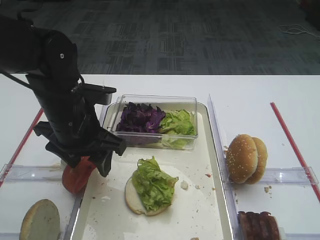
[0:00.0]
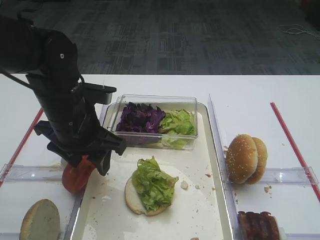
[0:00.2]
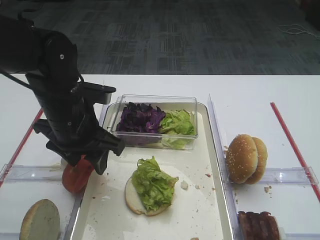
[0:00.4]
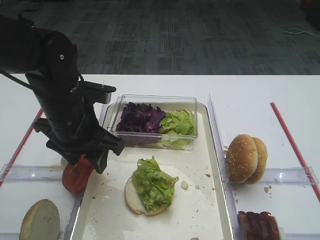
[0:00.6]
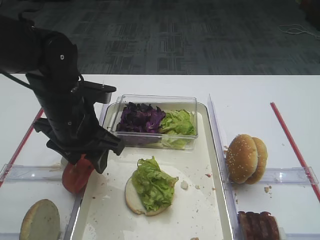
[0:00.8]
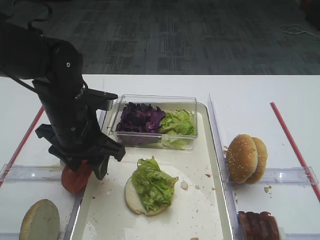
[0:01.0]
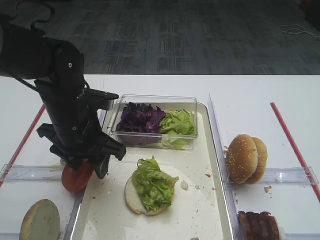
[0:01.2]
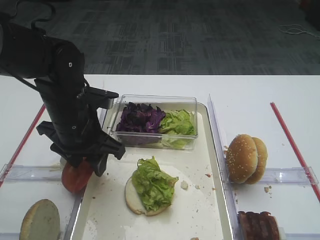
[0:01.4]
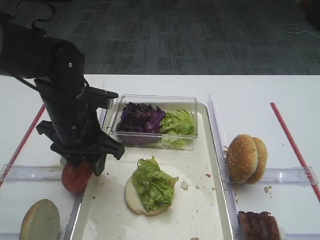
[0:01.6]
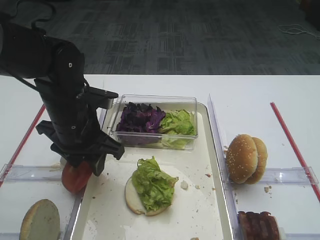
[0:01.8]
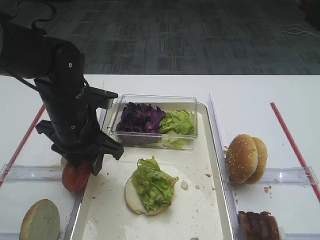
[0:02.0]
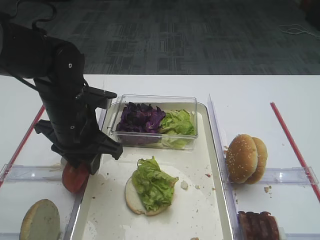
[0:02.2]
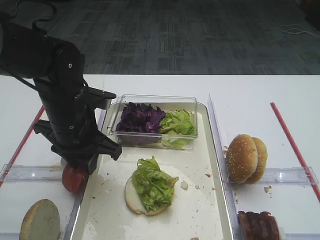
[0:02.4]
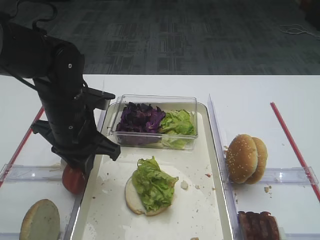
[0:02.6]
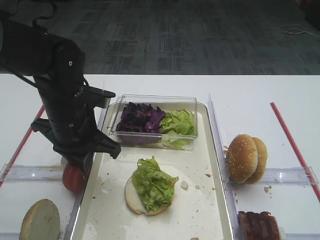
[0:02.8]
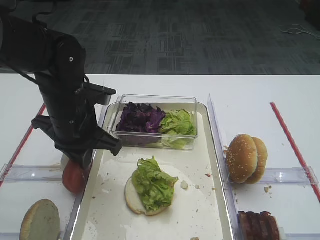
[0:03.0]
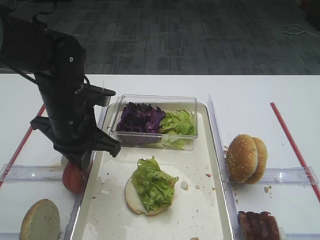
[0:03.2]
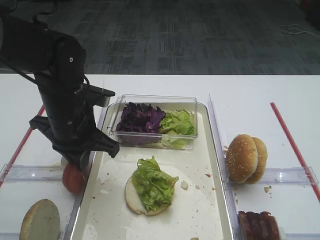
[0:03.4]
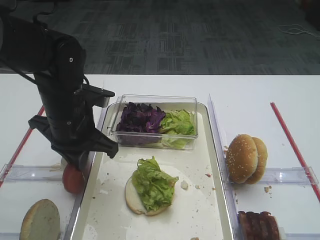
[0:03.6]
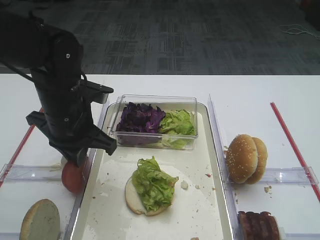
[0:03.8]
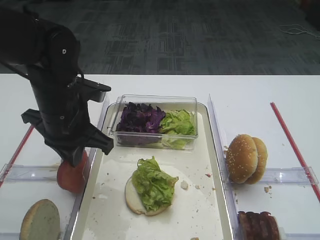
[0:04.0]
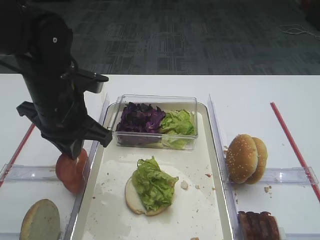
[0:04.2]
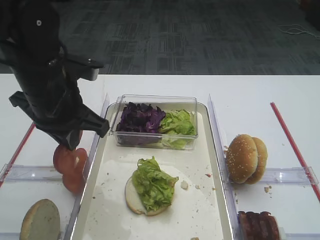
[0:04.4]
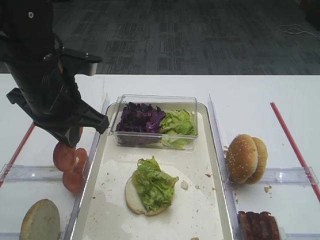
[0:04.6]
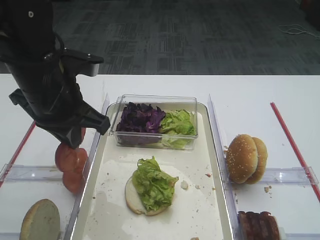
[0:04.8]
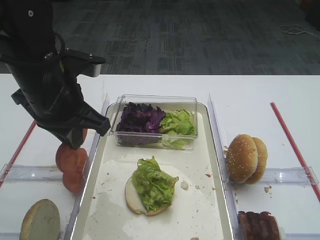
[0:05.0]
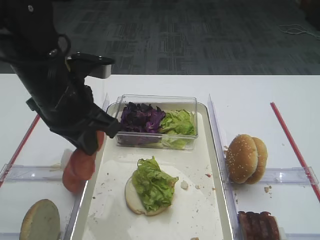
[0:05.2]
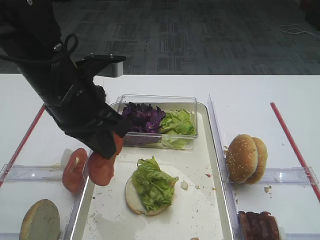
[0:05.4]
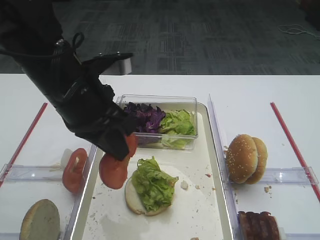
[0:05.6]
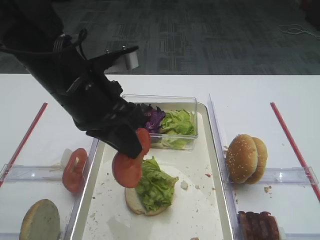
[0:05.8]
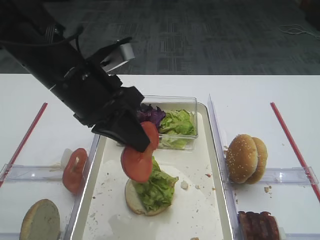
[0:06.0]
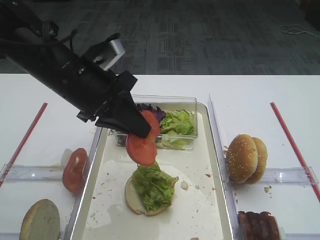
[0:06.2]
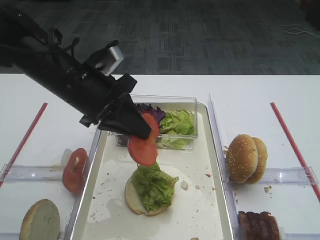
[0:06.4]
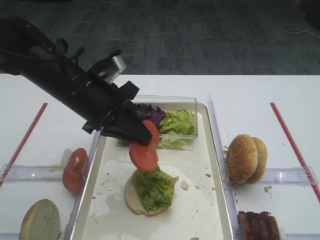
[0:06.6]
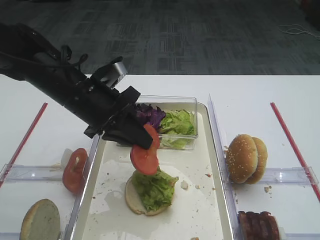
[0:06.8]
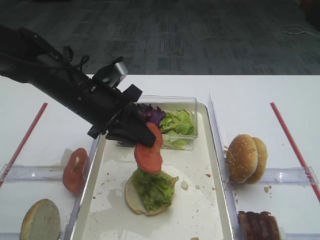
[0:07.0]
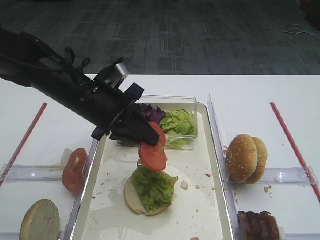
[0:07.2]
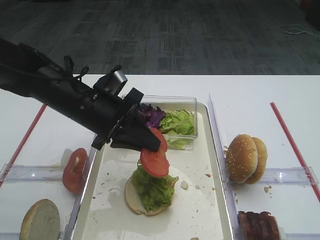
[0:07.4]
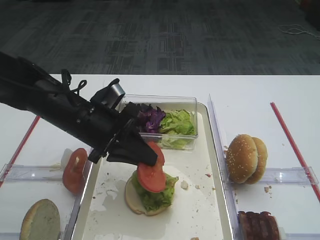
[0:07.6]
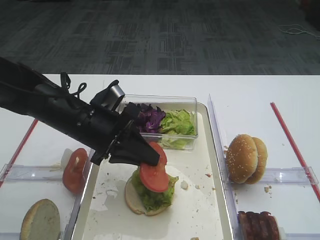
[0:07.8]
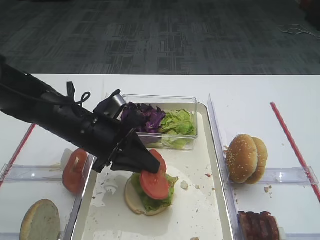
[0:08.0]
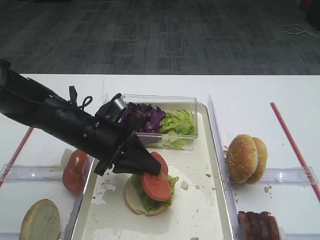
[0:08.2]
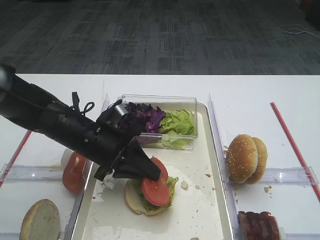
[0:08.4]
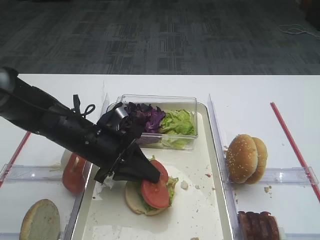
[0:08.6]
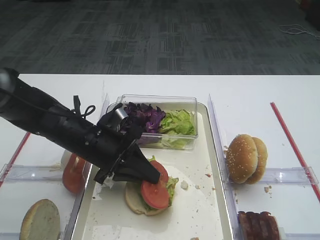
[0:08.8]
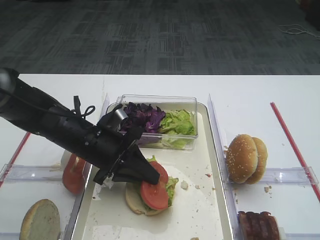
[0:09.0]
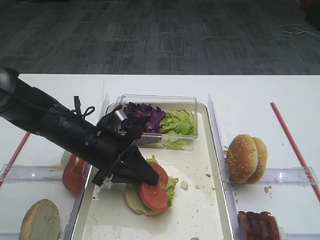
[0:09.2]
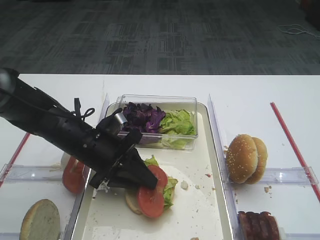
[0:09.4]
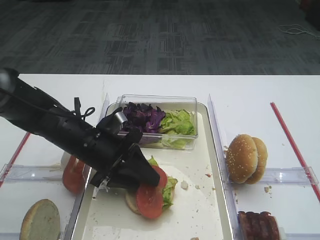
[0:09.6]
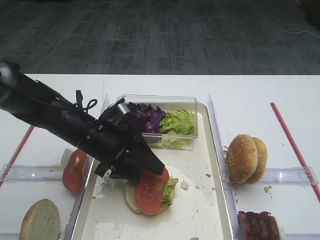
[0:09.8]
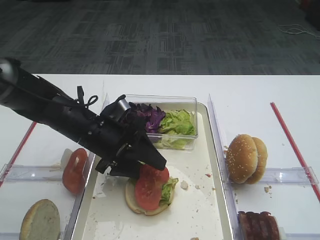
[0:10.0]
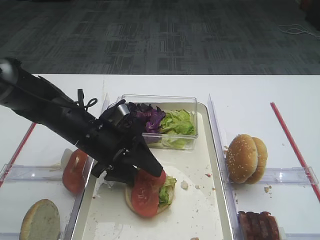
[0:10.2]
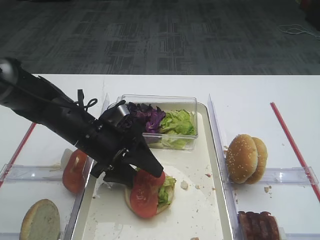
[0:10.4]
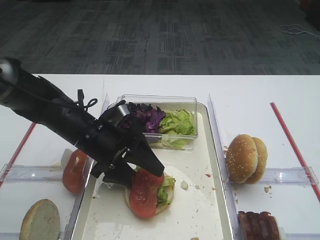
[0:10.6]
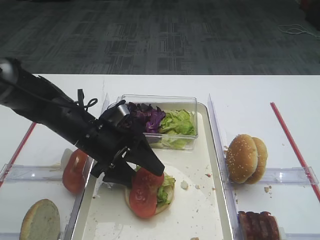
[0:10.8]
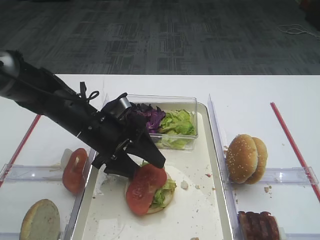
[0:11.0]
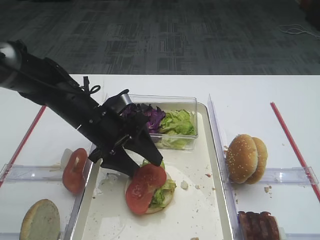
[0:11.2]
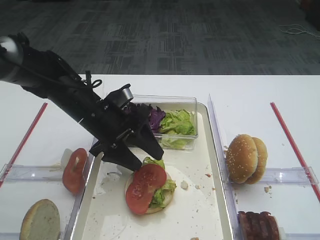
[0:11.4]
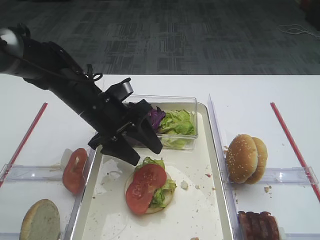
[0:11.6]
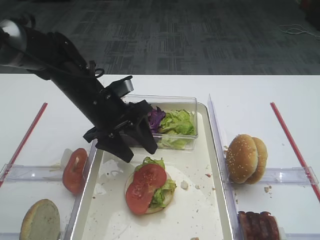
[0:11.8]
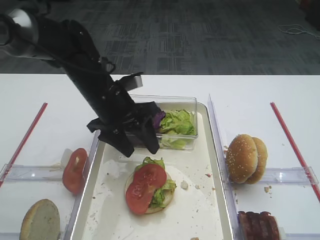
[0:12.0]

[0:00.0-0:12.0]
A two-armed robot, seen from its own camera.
Step, 0:00.0 to 0:05.2: Pick up the tomato slice with the left gripper.
0:00.0 to 0:01.6: The grippers move only a little.
0:01.6 to 0:03.0: The left gripper closes up.
0:03.0 to 0:04.4: The left gripper shifts about 5 cm upward.
0:06.0 to 0:07.6: The left gripper goes roughly 10 cm downward.
0:07.6 to 0:09.0: The left gripper is displaced downward by about 5 cm.
0:09.0 to 0:10.4: The left gripper opens up.
0:10.4 to 0:12.0: The left gripper is displaced upward by roughly 5 cm.

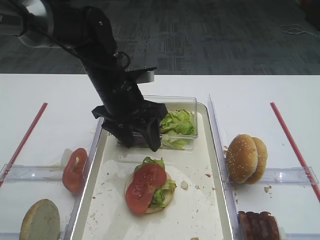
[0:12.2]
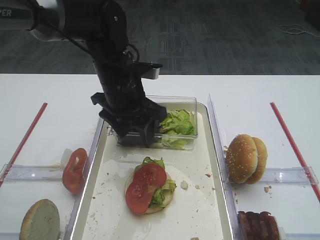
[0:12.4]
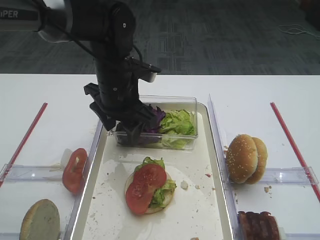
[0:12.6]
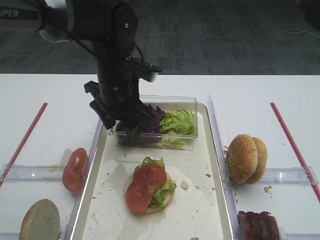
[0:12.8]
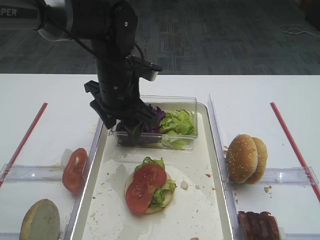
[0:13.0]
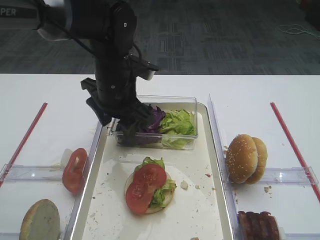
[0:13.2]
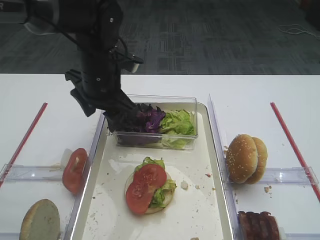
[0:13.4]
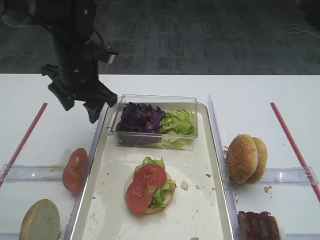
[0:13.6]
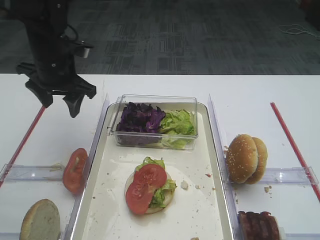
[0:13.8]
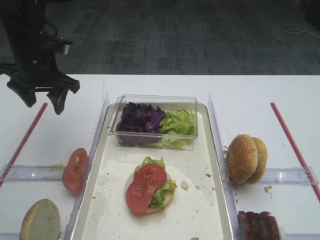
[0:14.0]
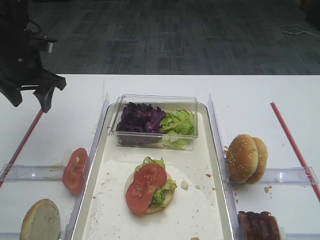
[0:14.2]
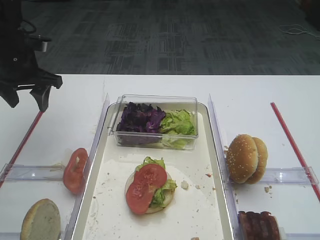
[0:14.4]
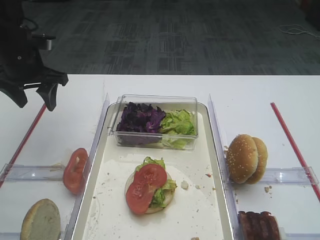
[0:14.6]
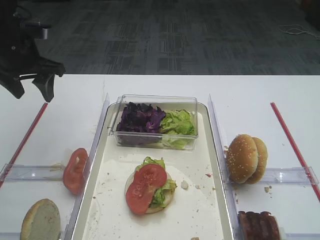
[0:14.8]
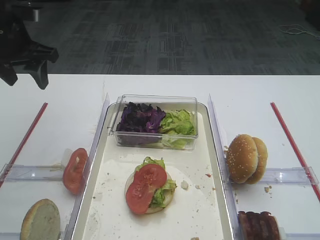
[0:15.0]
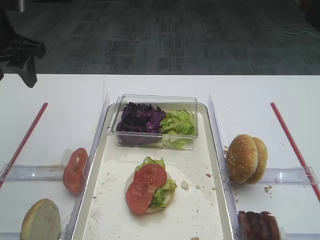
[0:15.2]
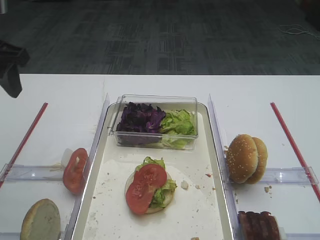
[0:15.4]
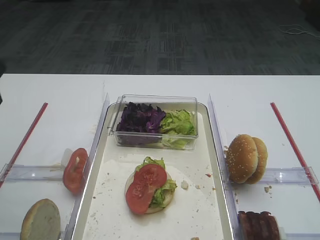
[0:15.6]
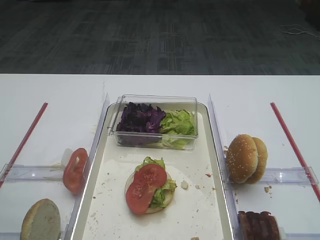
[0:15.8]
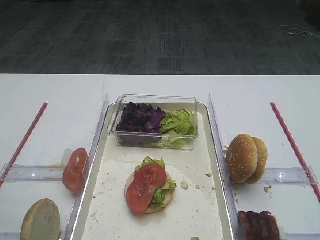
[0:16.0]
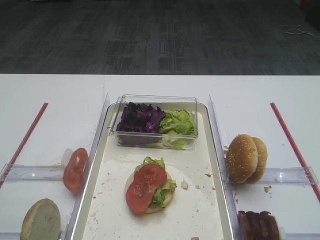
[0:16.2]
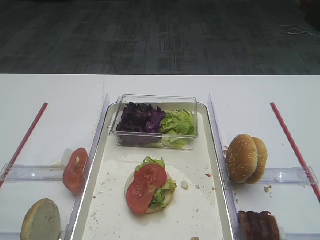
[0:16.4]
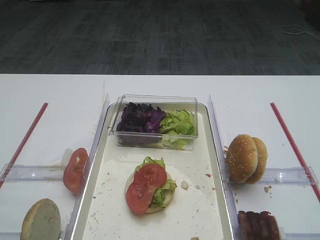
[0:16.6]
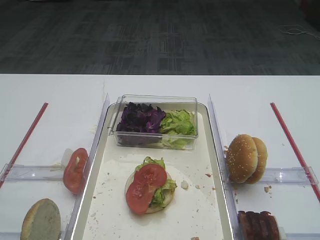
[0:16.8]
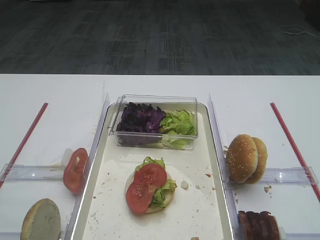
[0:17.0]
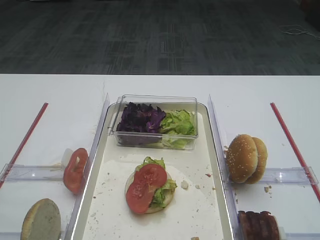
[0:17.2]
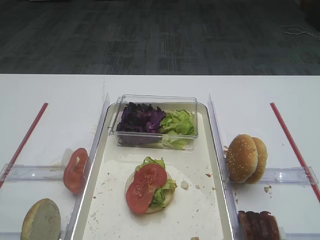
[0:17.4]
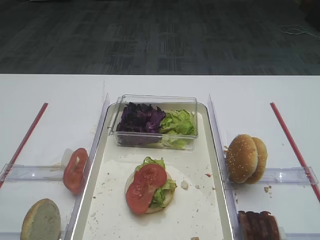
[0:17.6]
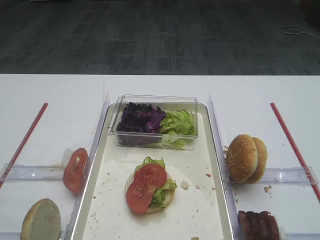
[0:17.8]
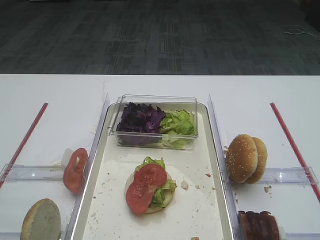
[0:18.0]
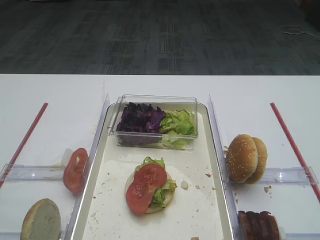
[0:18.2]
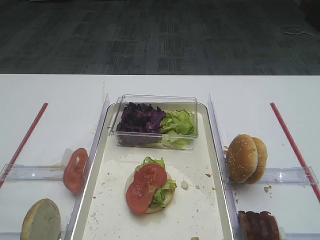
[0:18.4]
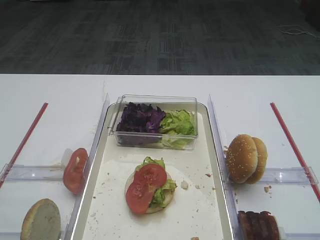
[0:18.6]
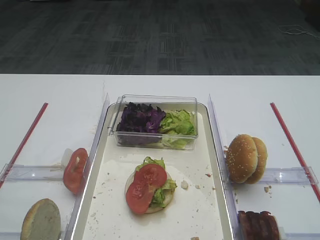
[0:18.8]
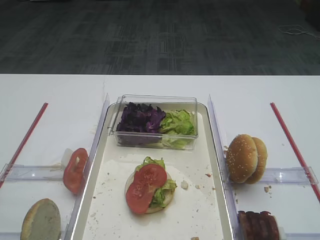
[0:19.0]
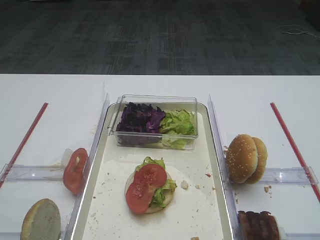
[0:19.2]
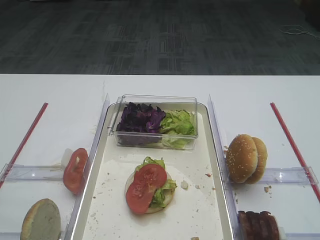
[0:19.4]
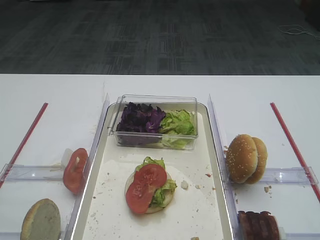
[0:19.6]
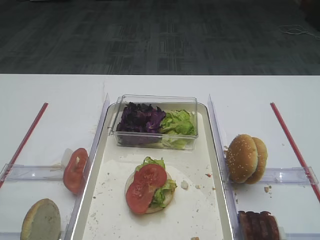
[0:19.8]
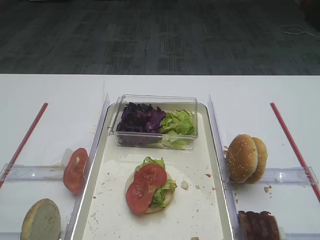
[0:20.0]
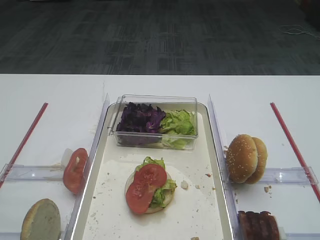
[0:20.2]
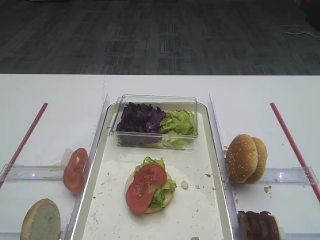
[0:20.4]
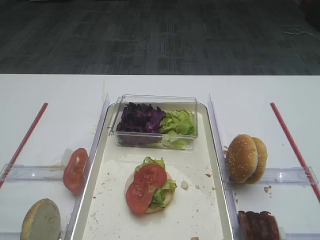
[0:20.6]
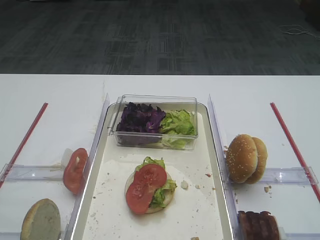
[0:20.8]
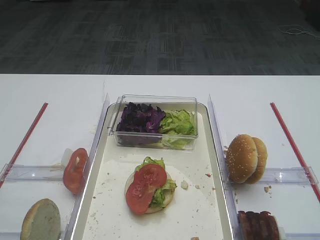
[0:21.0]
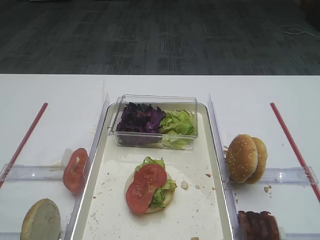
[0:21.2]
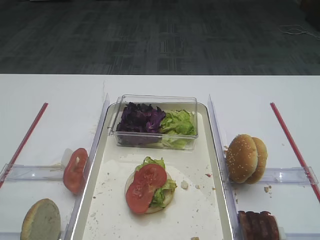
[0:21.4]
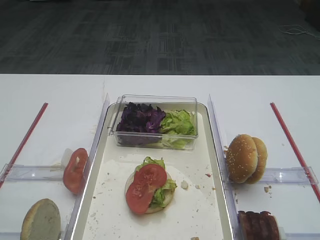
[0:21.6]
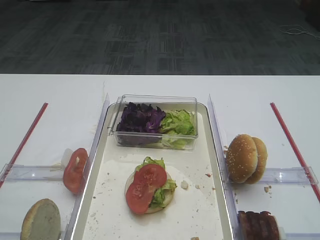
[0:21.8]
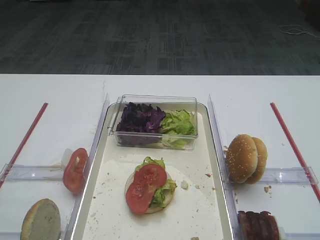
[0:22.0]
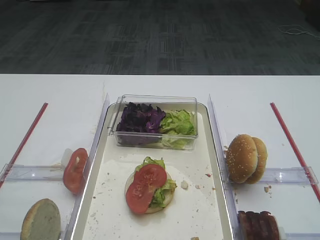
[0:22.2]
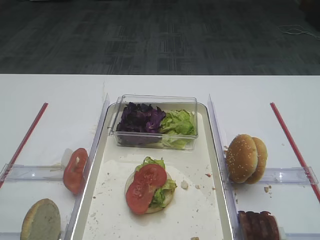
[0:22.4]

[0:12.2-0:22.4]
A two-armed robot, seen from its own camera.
0:12.2 to 0:13.6: The left gripper moves to the left, approximately 5 cm.
0:13.6 to 0:15.2: The left gripper moves to the left and upward, some 15 cm.
0:15.2 to 0:16.6: The left gripper is displaced backward by about 35 cm.
0:18.0 to 0:22.4: Both grippers stay about where they are.
